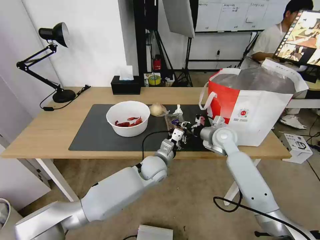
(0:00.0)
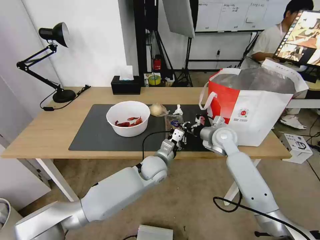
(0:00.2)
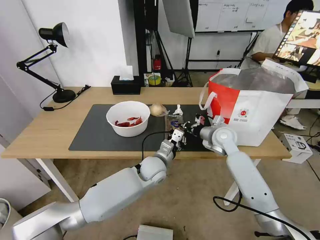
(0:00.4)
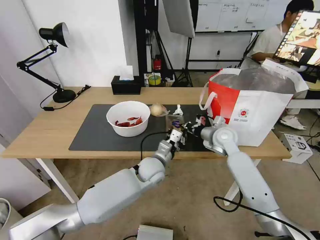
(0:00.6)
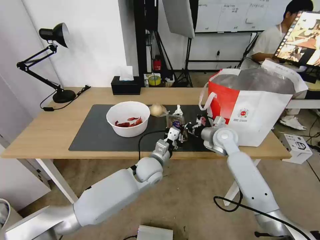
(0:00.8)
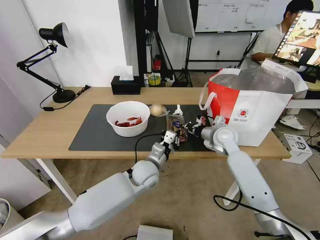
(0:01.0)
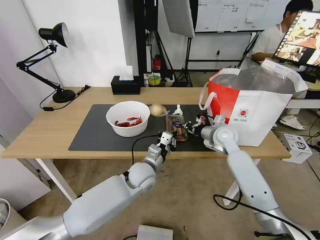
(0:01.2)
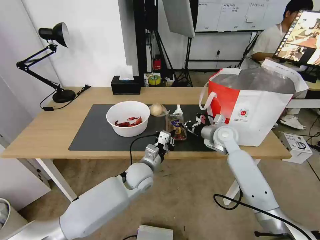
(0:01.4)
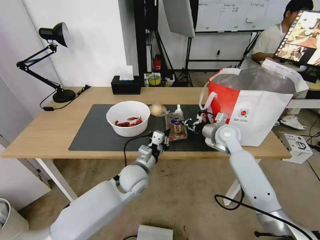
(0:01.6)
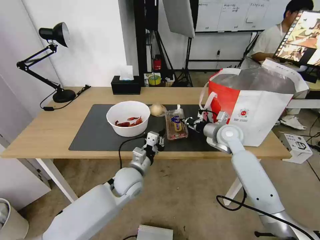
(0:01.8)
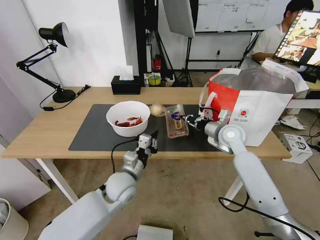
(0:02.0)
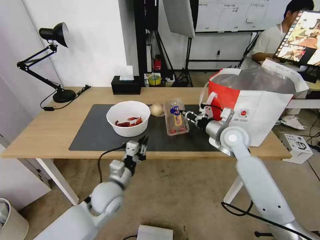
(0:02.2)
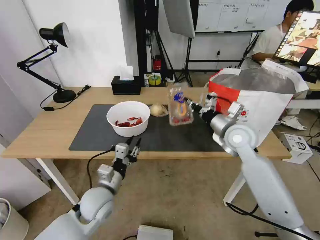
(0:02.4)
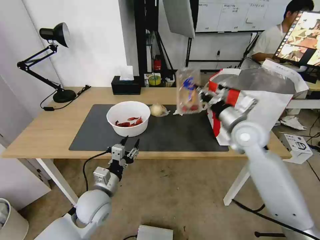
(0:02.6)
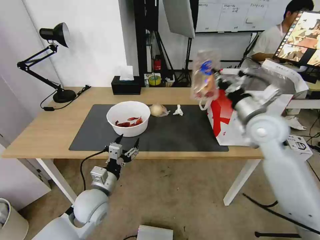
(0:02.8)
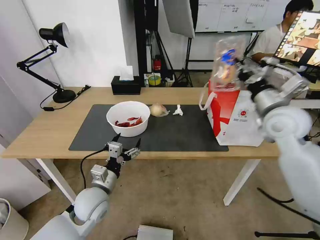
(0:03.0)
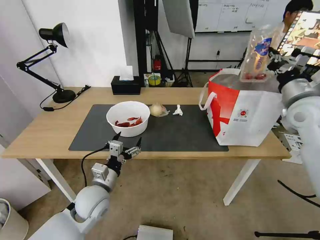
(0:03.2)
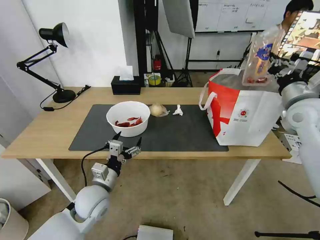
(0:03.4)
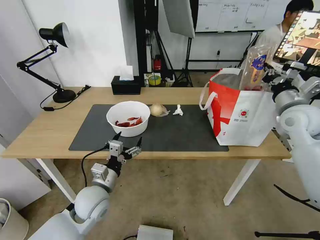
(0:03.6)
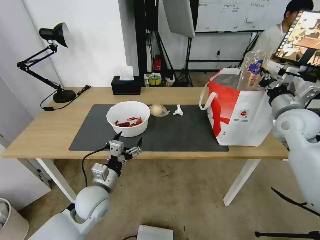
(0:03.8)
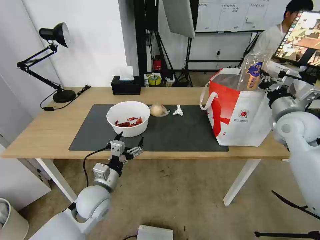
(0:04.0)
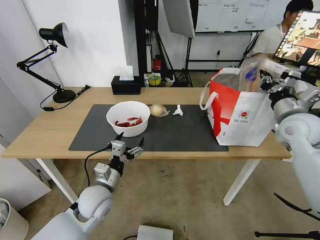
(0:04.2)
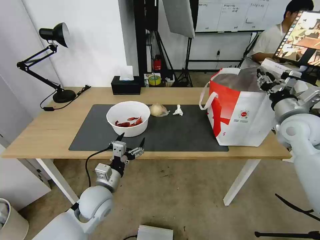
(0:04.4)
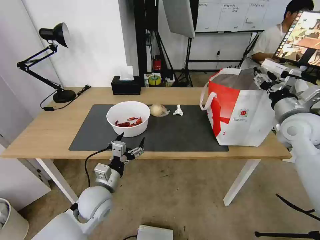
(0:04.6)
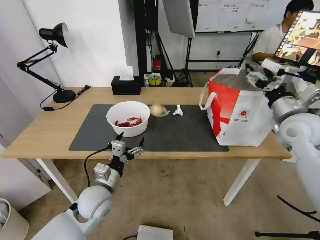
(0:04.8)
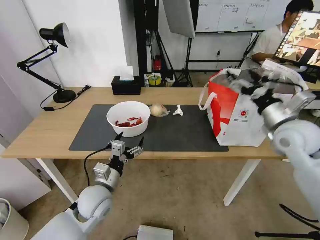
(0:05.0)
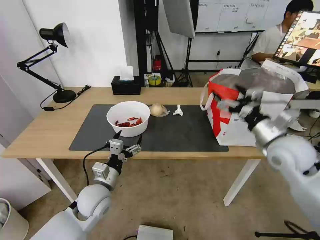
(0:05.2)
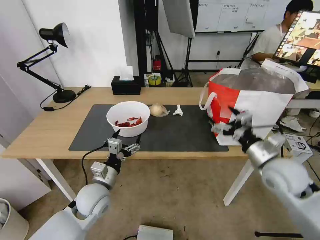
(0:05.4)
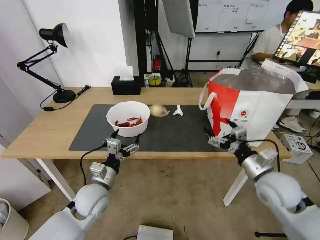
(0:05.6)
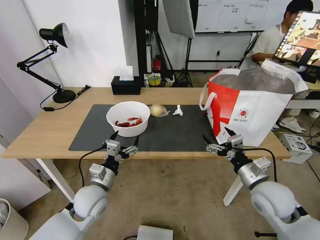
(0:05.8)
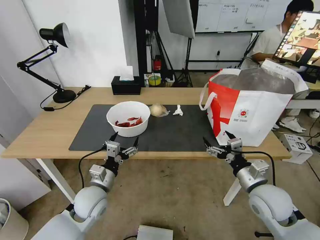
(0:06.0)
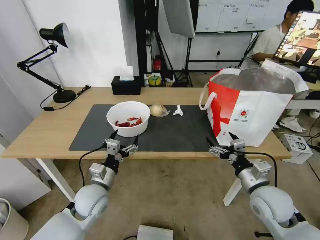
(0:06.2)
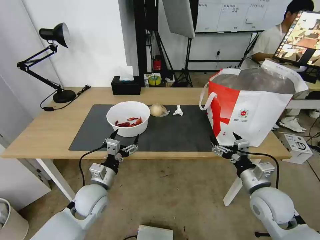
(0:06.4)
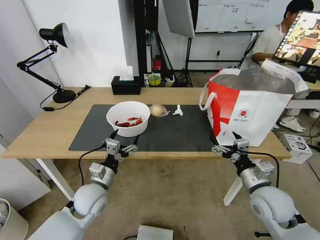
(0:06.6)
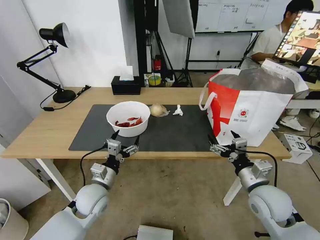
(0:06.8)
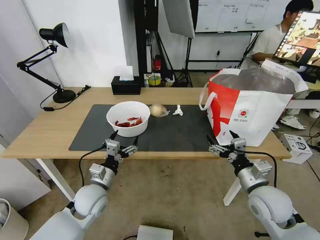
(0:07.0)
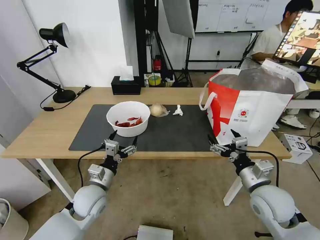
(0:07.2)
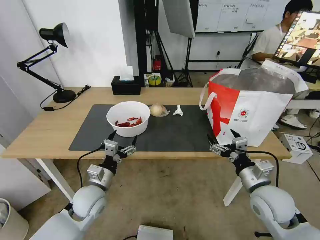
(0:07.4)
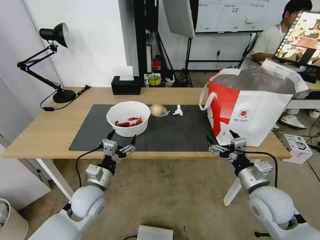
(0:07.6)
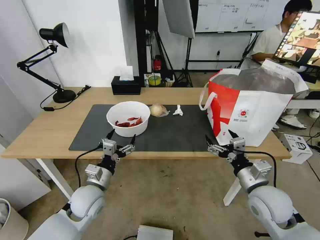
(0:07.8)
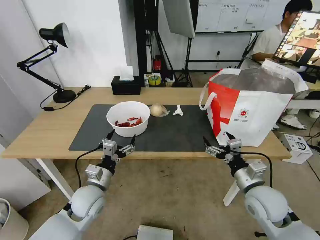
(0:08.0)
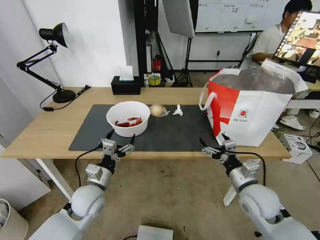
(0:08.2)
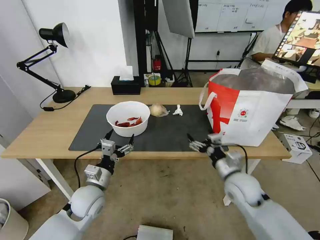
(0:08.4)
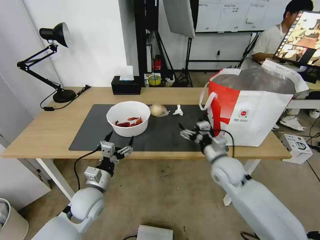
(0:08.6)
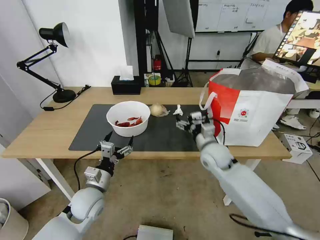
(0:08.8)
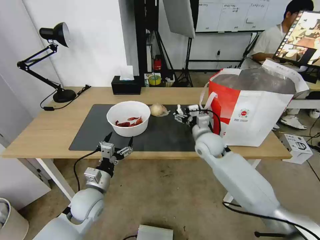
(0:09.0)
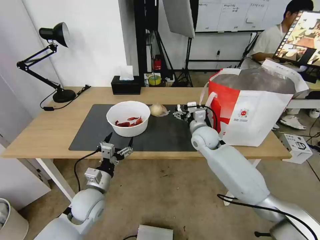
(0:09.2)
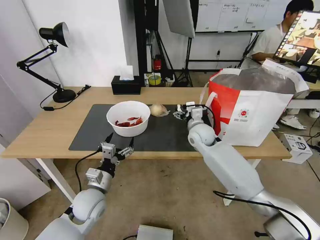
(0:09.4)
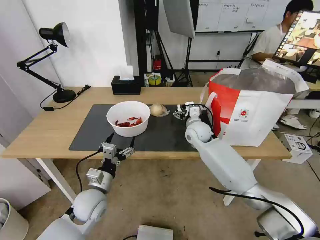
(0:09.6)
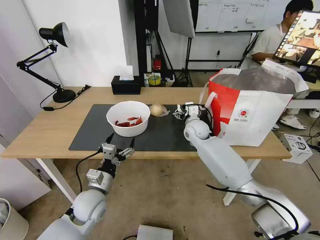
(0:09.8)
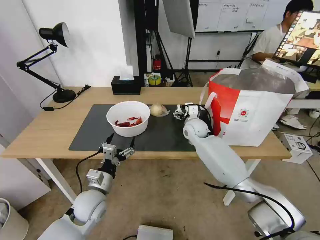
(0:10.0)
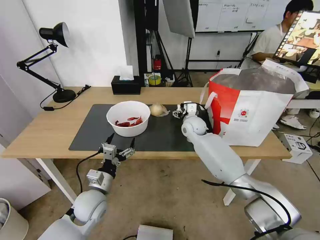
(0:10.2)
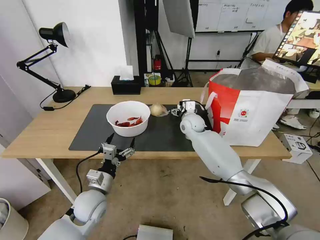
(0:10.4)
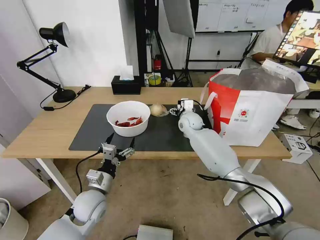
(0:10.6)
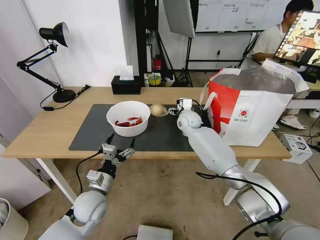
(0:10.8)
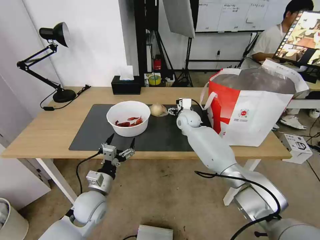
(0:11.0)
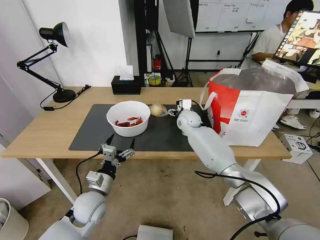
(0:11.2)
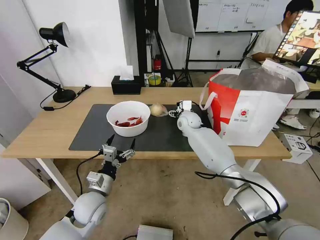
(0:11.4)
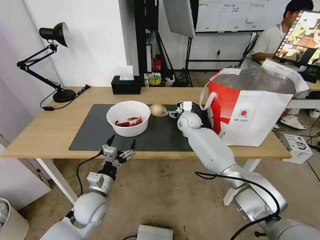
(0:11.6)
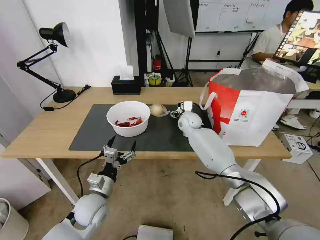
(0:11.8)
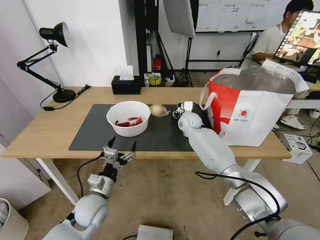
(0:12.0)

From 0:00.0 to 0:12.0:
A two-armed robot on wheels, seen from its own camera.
Task of the whole recording: Pick up the trash from the table and place it into the takeout bag.
From 0:00.0 to 0:01.6: The left gripper heads to the left, covering about 5 cm.
From 0:01.6 to 0:03.0: The left gripper moves to the left and backward, approximately 15 cm, and opens. Meanwhile the right gripper moves upward, backward and to the right, some 20 cm.
From 0:03.0 to 0:04.4: The right gripper heads to the right, covering some 5 cm, and opens up.
From 0:04.4 to 0:06.0: The right gripper shifts roughly 25 cm downward, backward and to the left, and opens up.
From 0:06.0 to 0:07.6: The grippers make only small movements.
From 0:07.6 to 0:09.0: The right gripper travels forward and to the left by some 25 cm.
From 0:09.0 to 0:10.4: The right gripper heads forward, covering roughly 10 cm.
From 0:10.4 to 0:12.0: There are only small adjustments of the grippers.

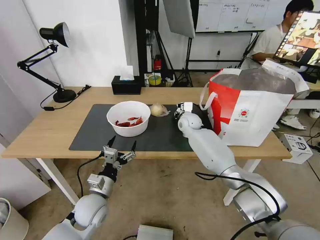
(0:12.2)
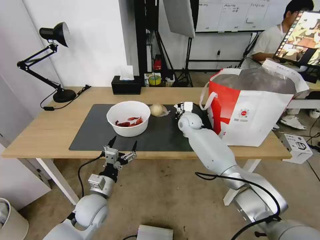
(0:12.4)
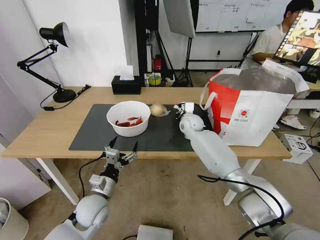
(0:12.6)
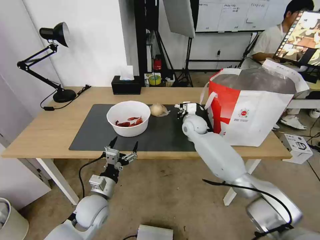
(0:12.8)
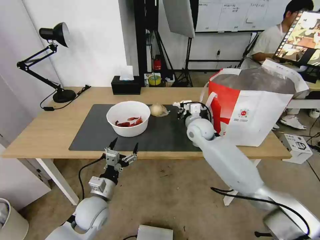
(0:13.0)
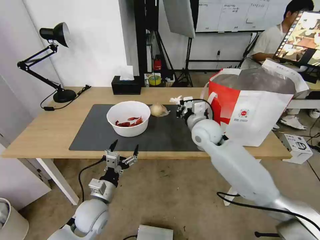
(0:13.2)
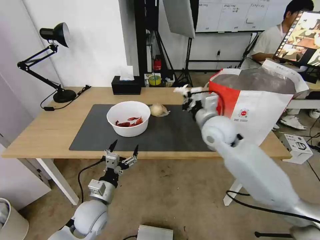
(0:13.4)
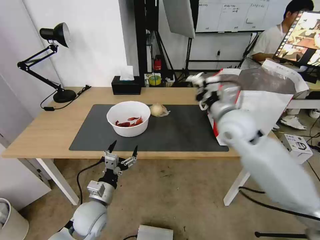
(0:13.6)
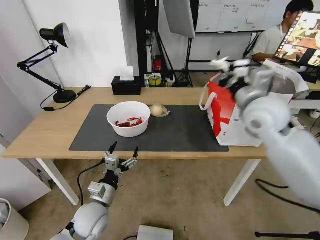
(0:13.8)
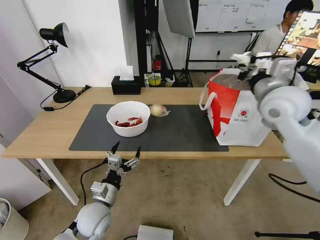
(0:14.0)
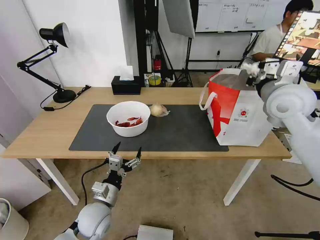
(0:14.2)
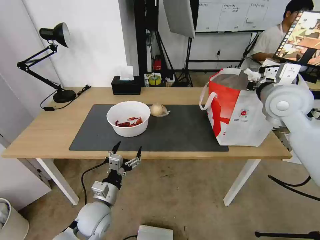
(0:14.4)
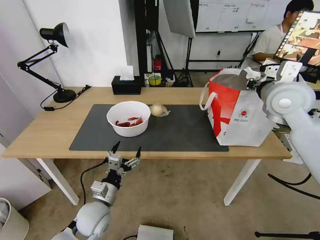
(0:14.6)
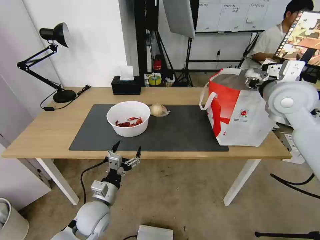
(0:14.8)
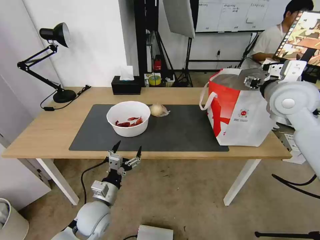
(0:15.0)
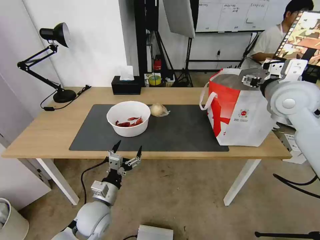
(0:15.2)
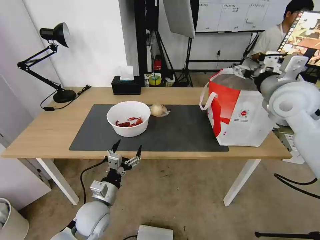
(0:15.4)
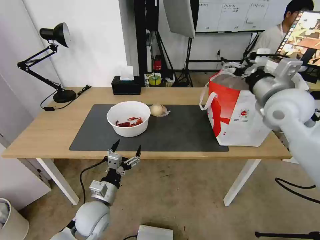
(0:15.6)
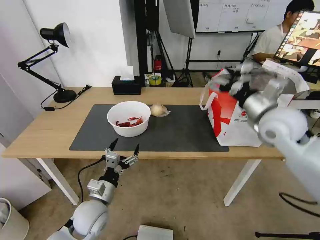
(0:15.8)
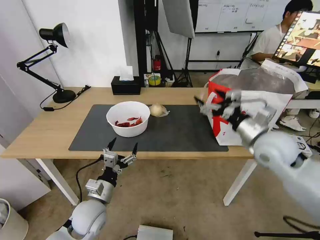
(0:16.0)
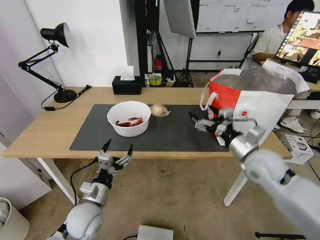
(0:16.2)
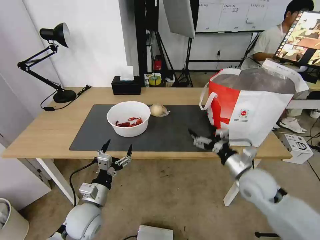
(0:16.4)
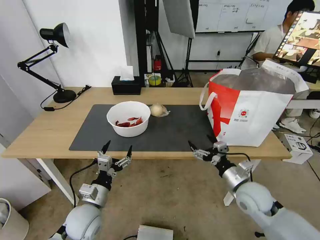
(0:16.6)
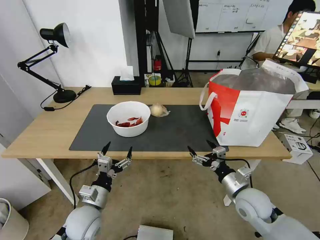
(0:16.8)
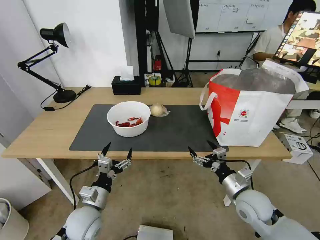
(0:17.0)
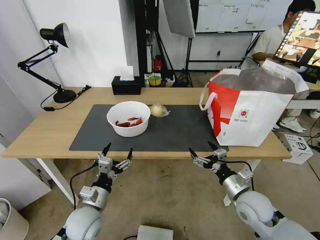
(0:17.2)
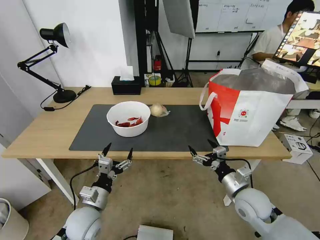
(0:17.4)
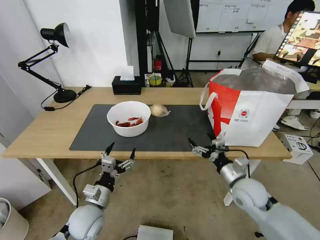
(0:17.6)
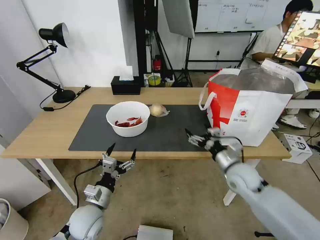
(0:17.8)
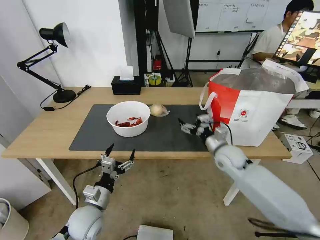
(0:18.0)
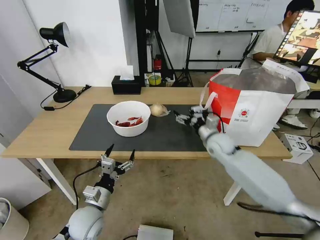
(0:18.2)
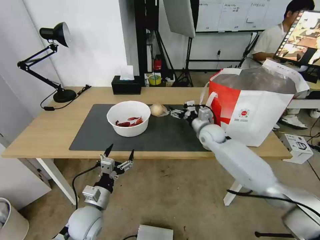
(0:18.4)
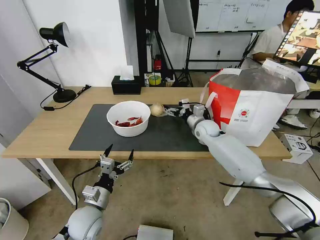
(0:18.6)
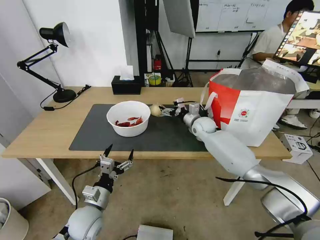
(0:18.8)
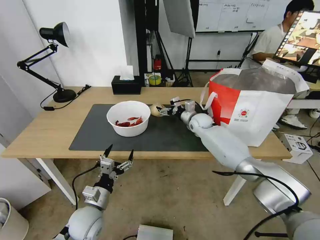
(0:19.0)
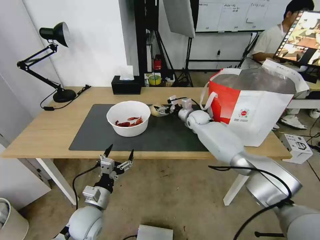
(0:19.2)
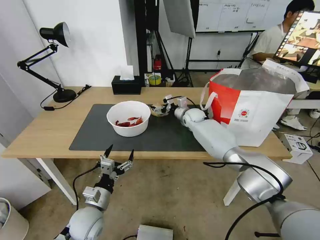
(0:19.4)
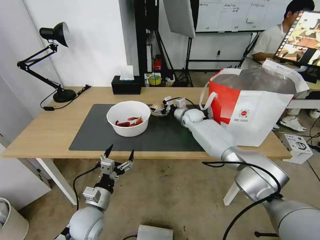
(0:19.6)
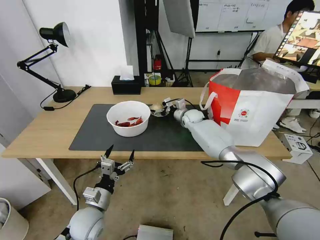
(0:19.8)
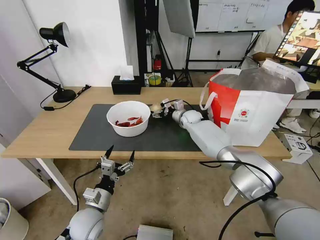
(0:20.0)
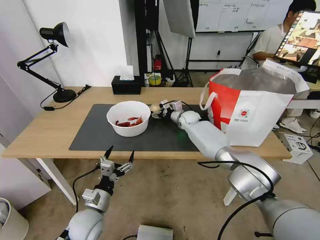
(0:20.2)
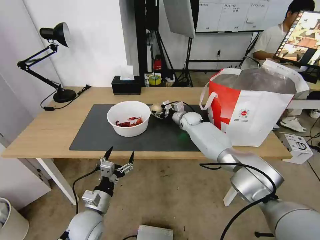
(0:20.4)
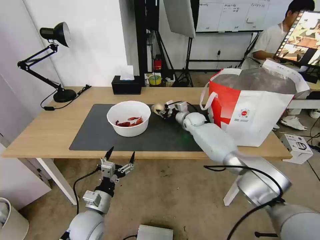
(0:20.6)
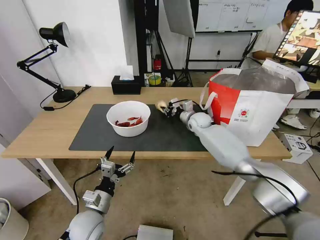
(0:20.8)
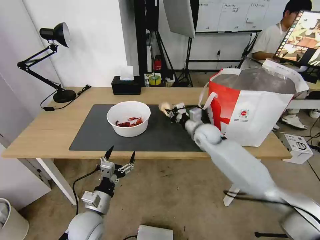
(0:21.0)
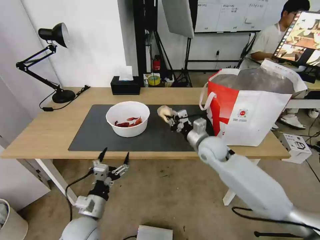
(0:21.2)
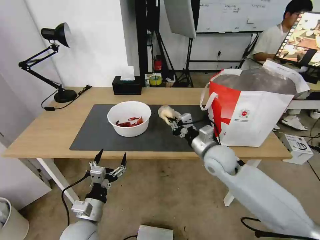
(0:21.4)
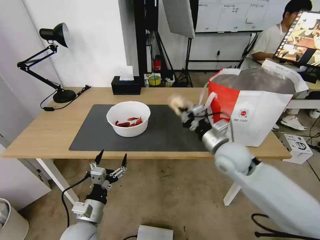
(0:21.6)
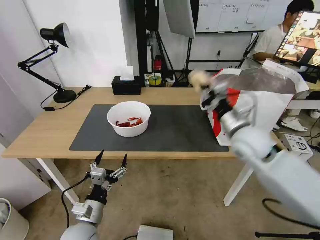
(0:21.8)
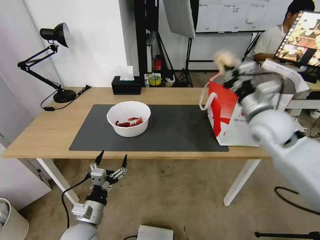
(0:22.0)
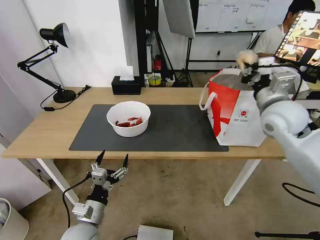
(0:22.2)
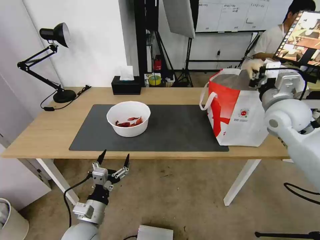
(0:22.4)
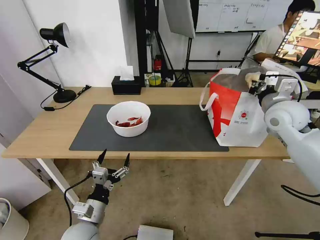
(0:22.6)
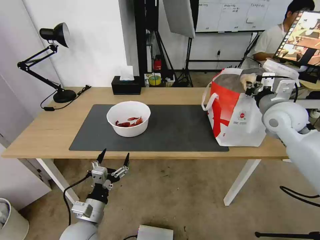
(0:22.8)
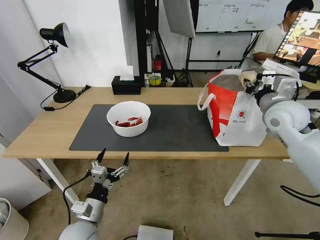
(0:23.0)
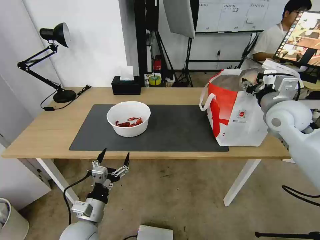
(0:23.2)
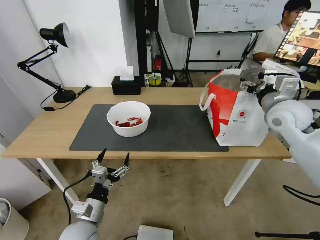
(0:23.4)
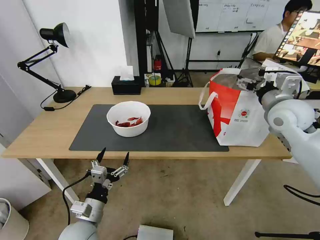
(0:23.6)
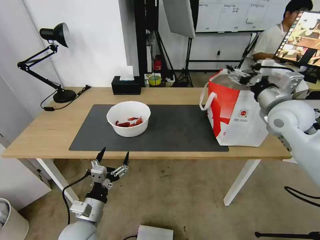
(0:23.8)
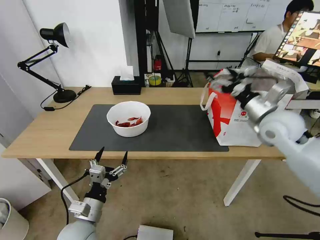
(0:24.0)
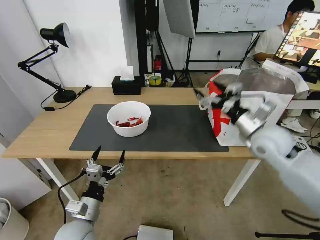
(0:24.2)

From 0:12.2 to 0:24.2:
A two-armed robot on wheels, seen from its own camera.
Task of the whole recording: Pick up the trash from the table and place it into the takeout bag.
From 0:12.2 to 0:13.8: The right gripper moves upward, backward and to the right, about 30 cm, and closes up.
From 0:13.8 to 0:15.2: The right gripper shifts some 5 cm to the right, and opens.
From 0:15.2 to 0:16.6: The right gripper goes approximately 30 cm downward and backward.
From 0:16.6 to 0:18.2: The right gripper moves forward, approximately 20 cm.
From 0:18.2 to 0:19.8: The right gripper shifts approximately 15 cm forward.
From 0:19.8 to 0:21.2: The right gripper heads backward, covering some 20 cm, and closes.
From 0:21.2 to 0:22.6: The right gripper shifts roughly 25 cm to the right and upward.
From 0:22.6 to 0:24.2: The right gripper heads downward and backward, covering some 10 cm, and opens its fingers.
